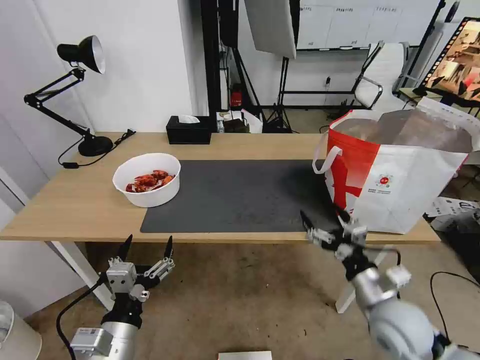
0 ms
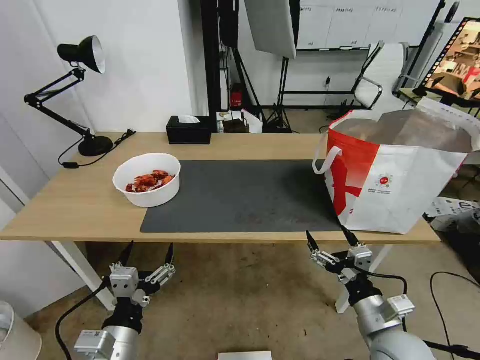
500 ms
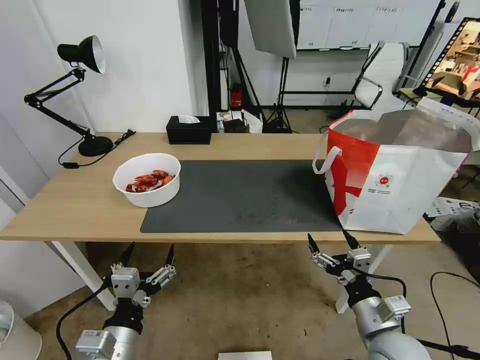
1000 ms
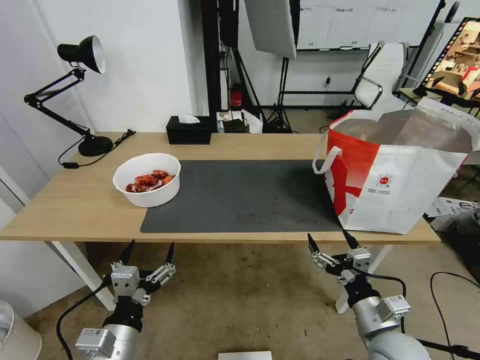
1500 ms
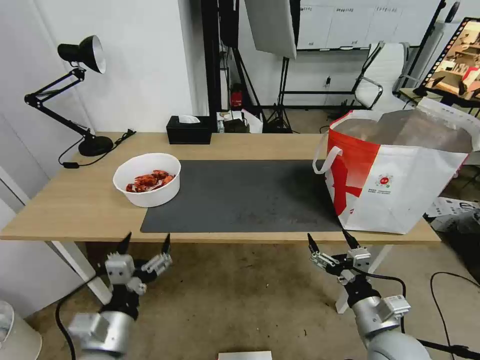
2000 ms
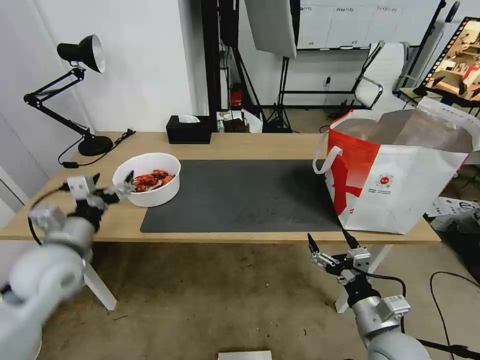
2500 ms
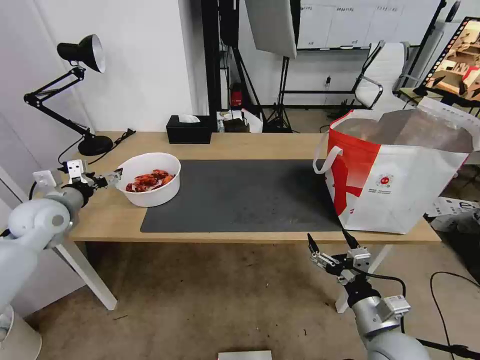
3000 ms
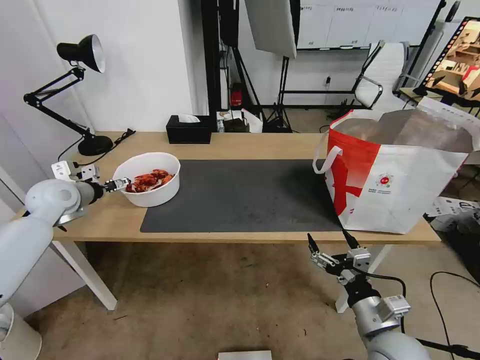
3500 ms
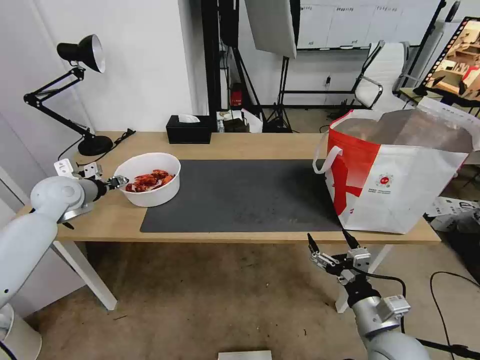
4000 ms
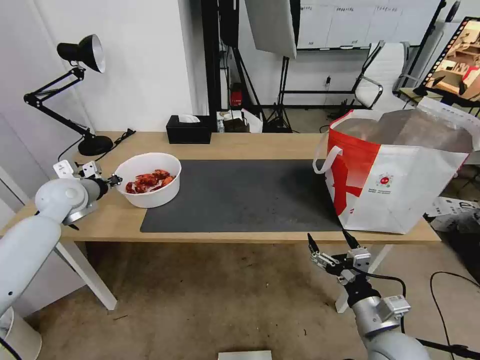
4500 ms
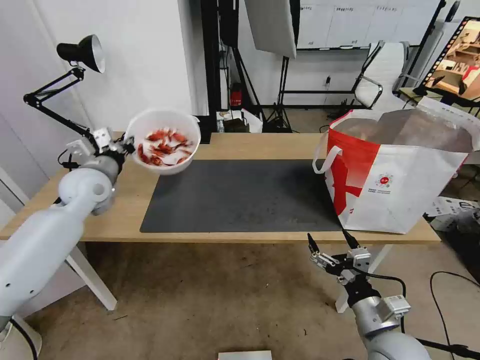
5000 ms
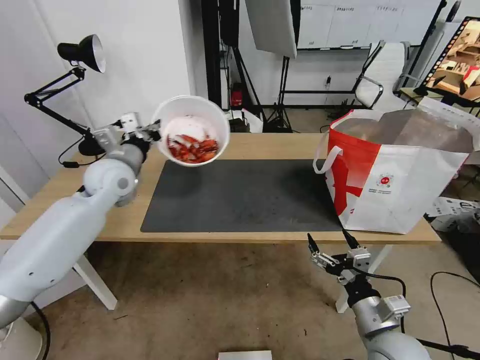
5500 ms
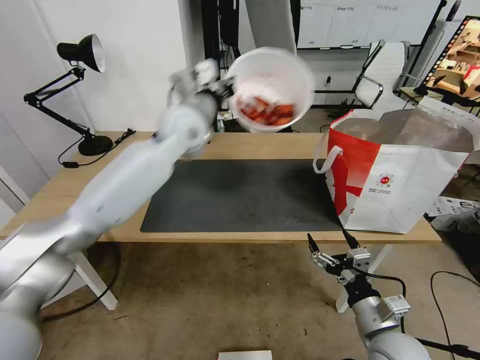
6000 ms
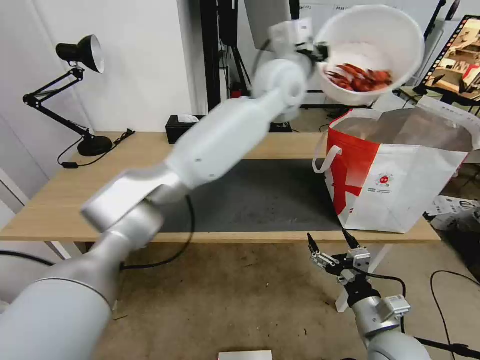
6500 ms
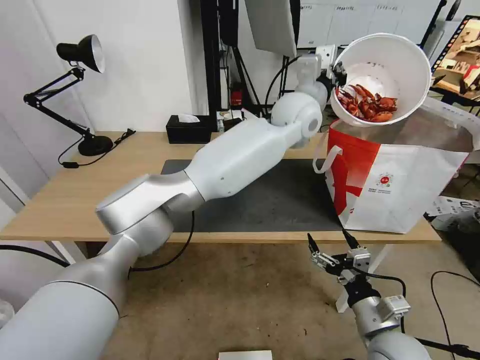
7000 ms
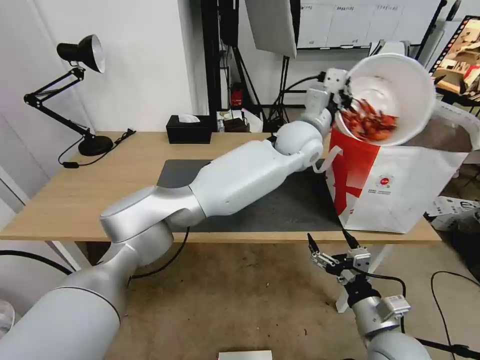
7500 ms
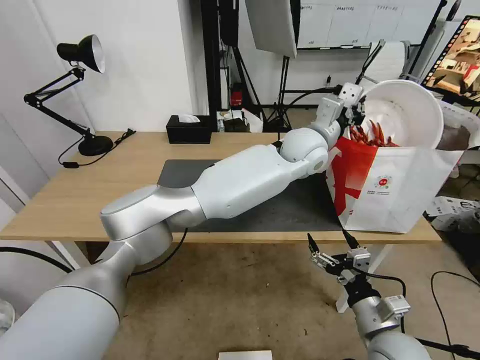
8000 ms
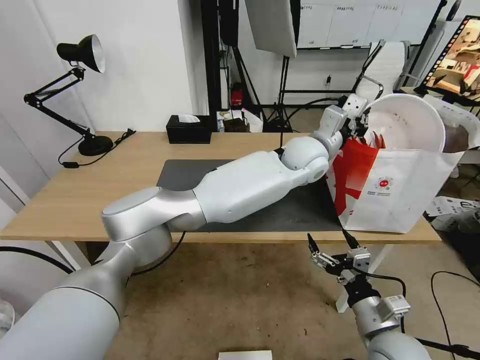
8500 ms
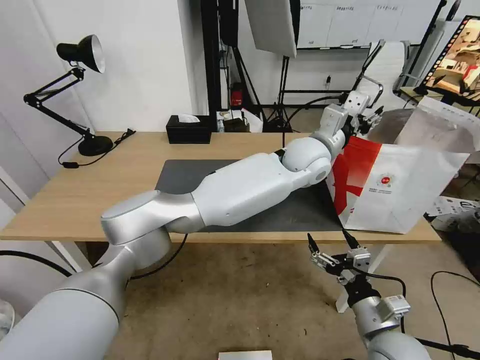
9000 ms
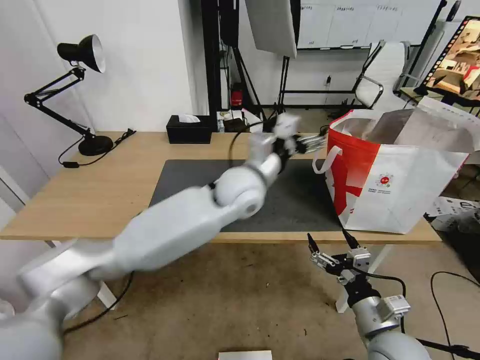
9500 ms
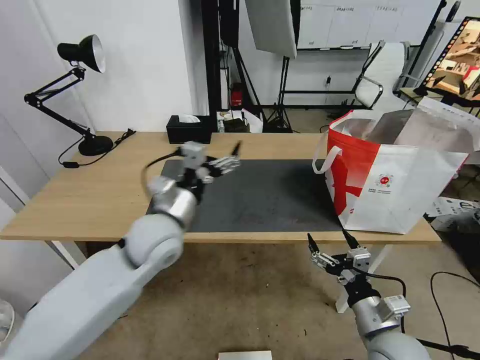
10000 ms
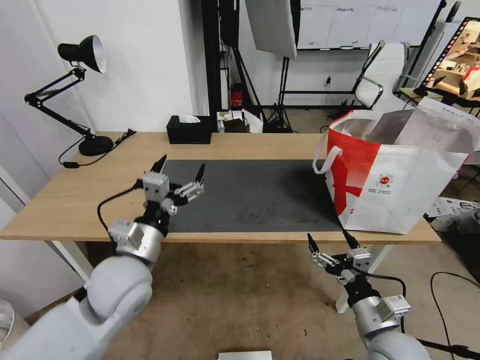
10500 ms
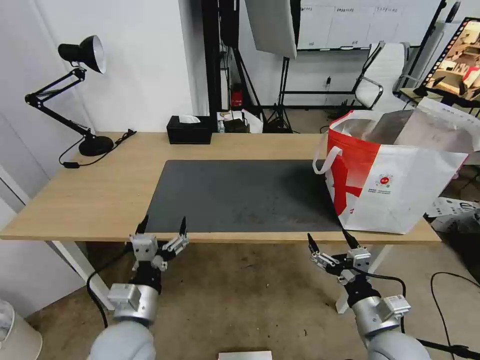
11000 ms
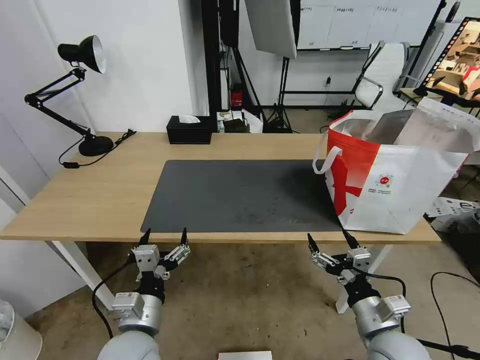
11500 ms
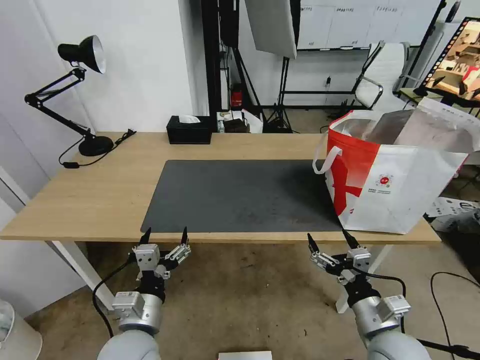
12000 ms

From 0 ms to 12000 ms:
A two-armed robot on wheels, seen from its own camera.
Task of the whole recording: Pick up the trash from the table and place it into the takeout bag.
From 0 ms to 2000 ms: The right gripper heads backward, covering approximately 5 cm.
From 2000 ms to 4000 ms: The left gripper is displaced forward and to the left by about 35 cm, and closes up.
From 4000 ms to 6000 ms: The left gripper is displaced to the right and upward by approximately 35 cm, and closes its fingers.
From 6000 ms to 8000 ms: The left gripper shifts roughly 25 cm to the right.
From 8000 ms to 10000 ms: The left gripper goes about 30 cm to the left and backward, and opens its fingers.
From 10000 ms to 12000 ms: The left gripper heads backward and downward, covering roughly 20 cm.

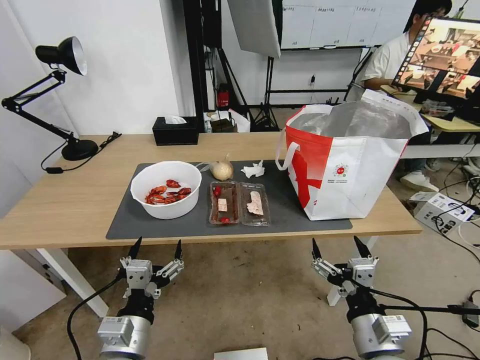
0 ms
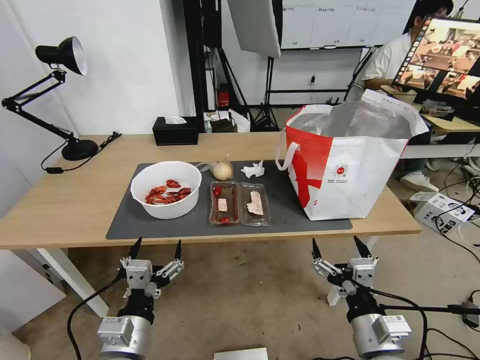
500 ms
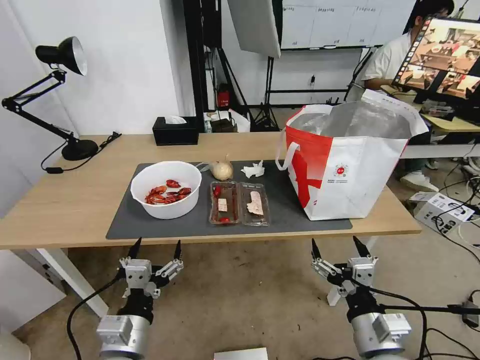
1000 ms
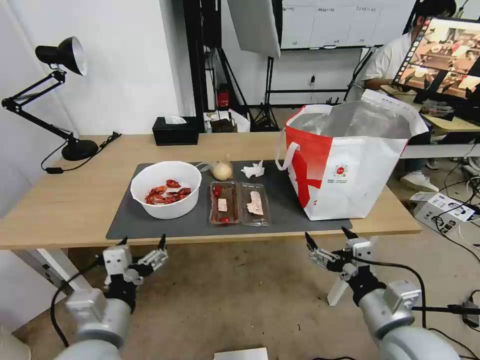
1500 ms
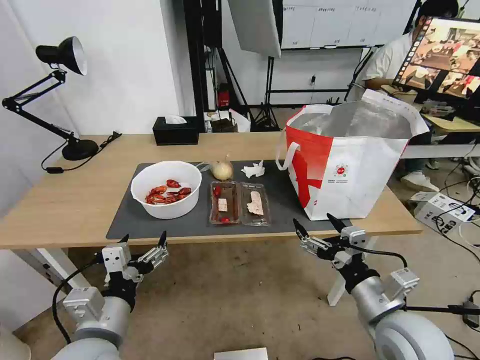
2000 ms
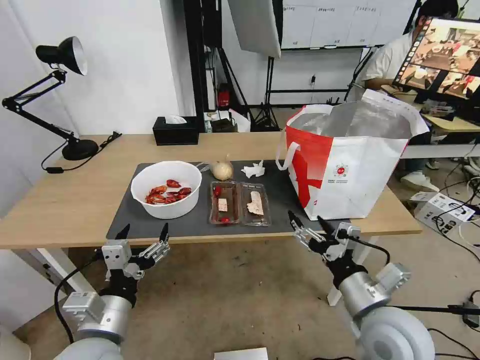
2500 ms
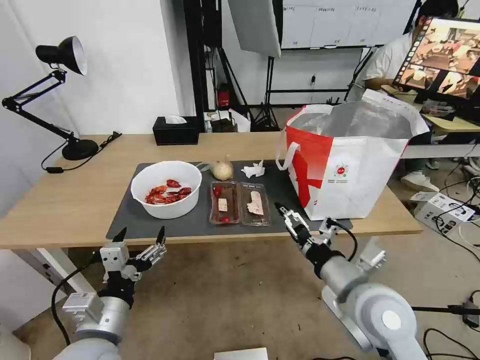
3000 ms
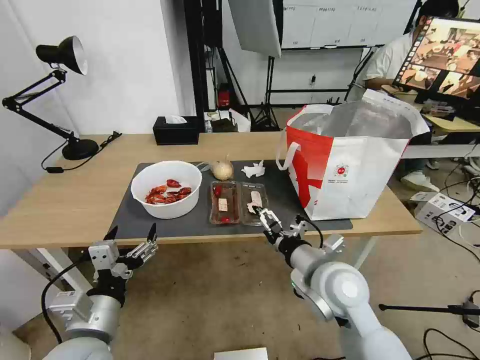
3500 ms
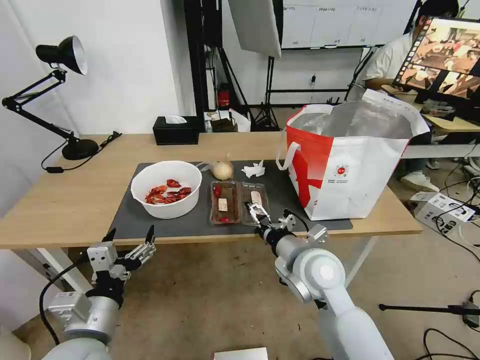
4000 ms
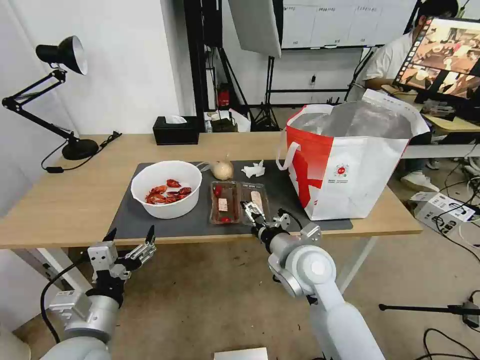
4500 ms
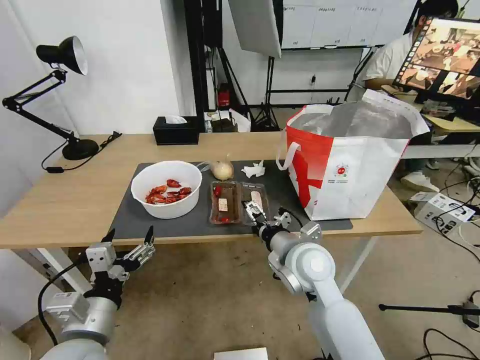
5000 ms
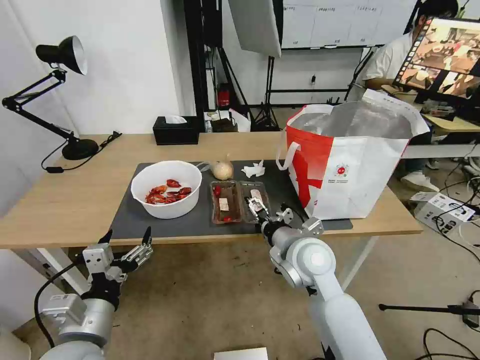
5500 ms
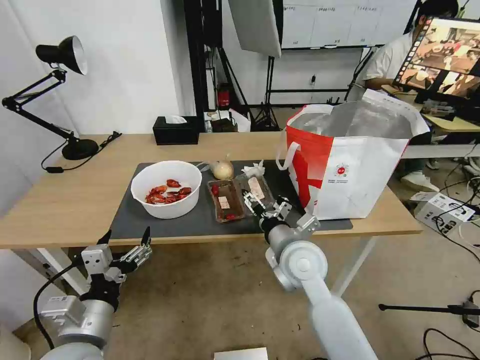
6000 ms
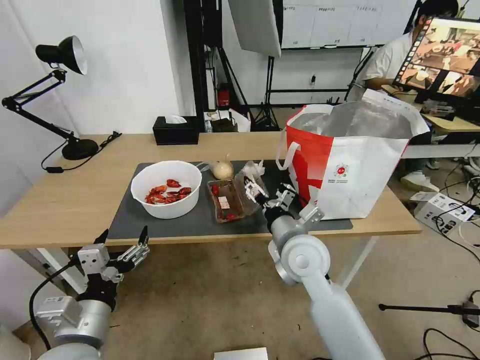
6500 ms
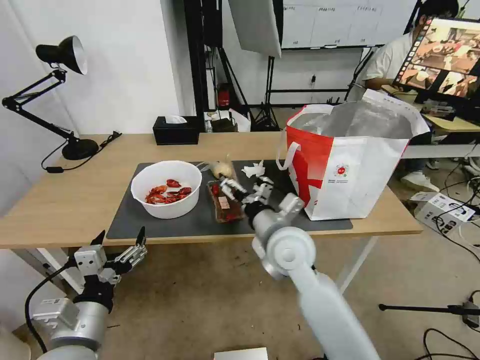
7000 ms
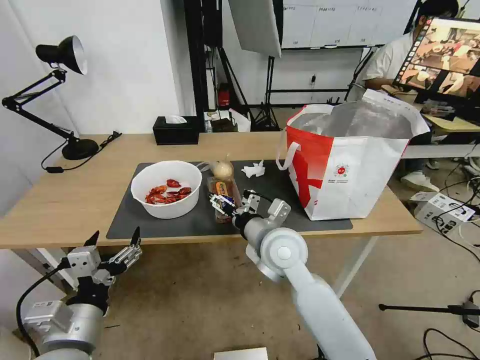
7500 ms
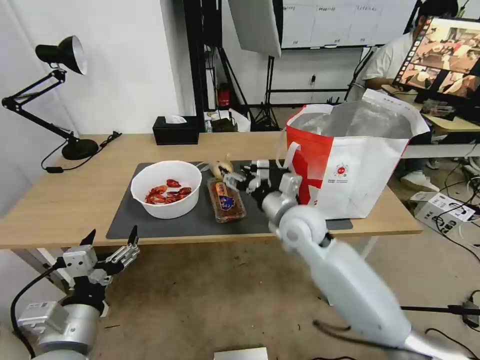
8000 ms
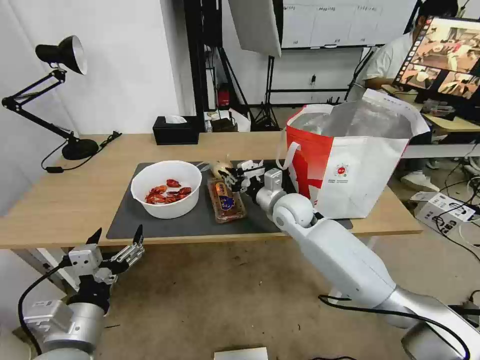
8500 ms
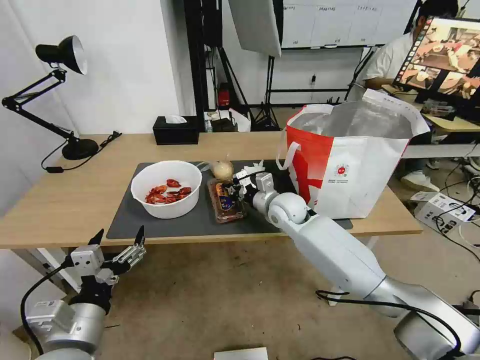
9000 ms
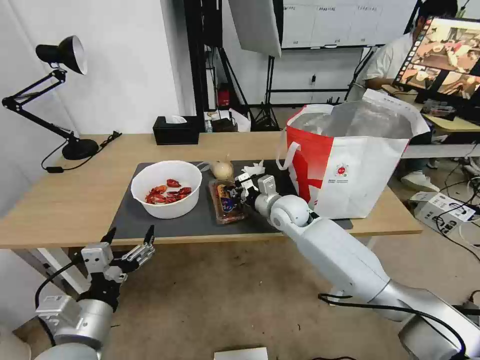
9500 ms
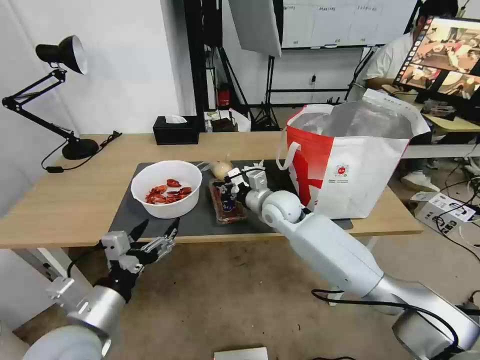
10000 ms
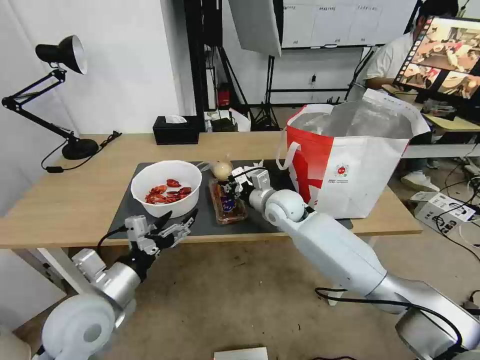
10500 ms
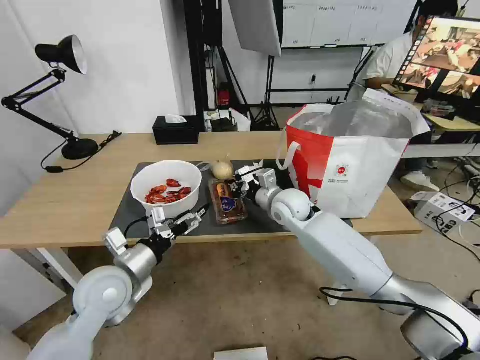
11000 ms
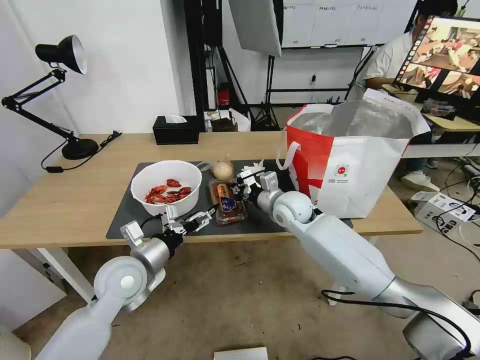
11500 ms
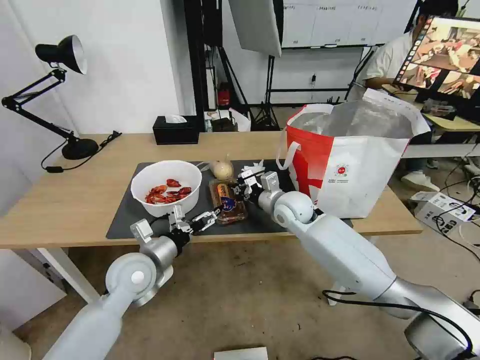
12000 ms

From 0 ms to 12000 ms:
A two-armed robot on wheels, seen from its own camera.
Task of the whole recording: Pick up the trash from the table and place it into the takeout bag.
From 2000 ms to 4000 ms: The right gripper moves to the left and forward, approximately 15 cm.
From 4000 ms to 6000 ms: The grippers stay close to where they were, moving slightly.
From 6000 ms to 8000 ms: The right gripper travels forward by approximately 5 cm.
From 8000 ms to 10000 ms: The right gripper is displaced forward by about 10 cm, and closes.
From 10000 ms to 12000 ms: The left gripper shifts about 15 cm forward.

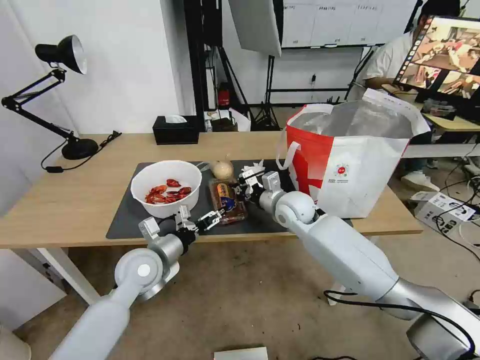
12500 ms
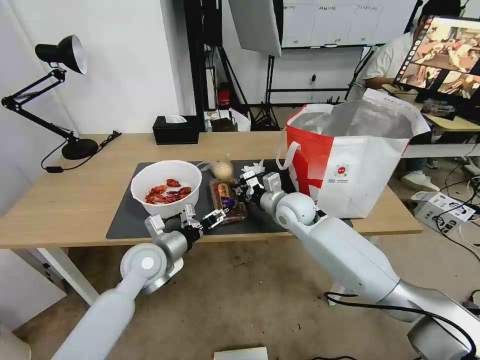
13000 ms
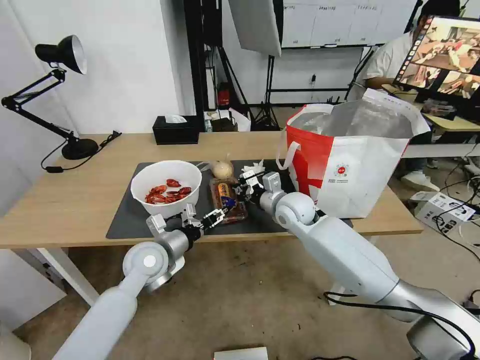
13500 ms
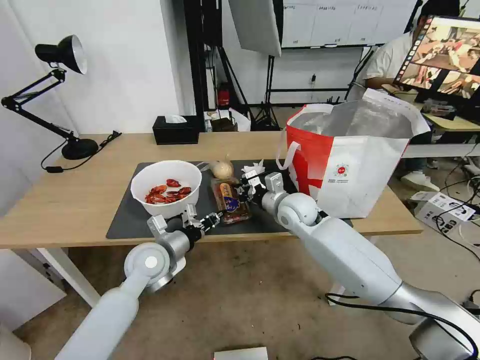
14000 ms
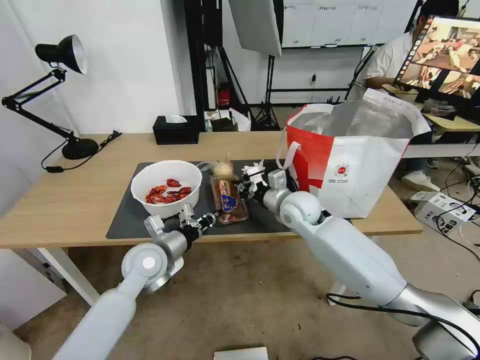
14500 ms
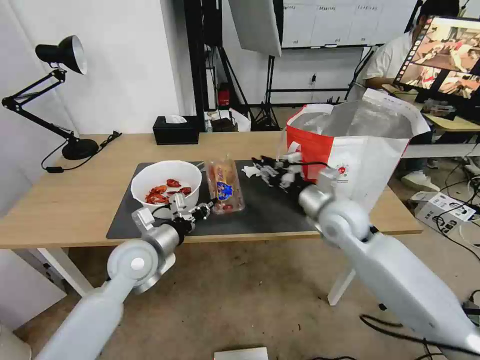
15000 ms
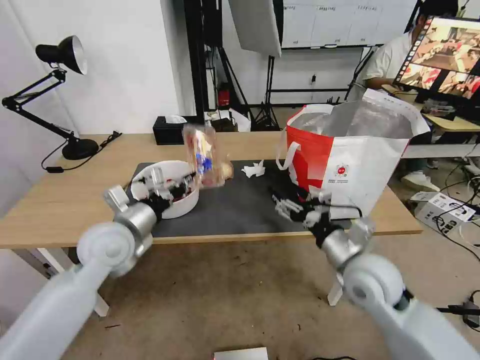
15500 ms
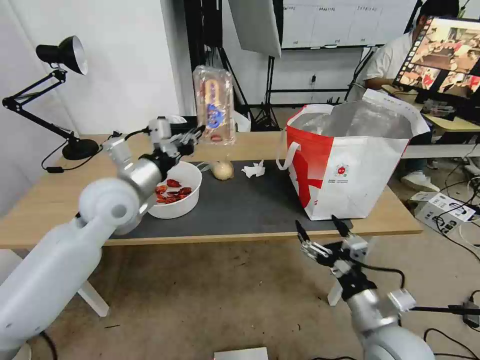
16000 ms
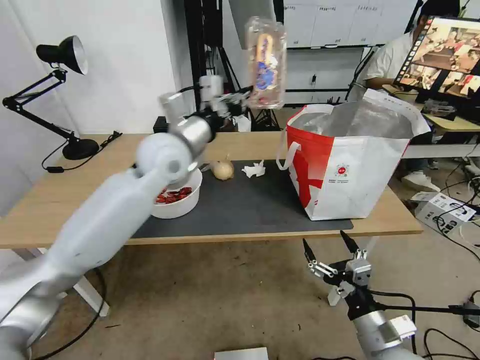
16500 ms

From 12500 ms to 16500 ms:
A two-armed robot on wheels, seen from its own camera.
Task of the whole recording: Pick up the trash from the table and place it into the takeout bag.
From 12500 ms to 14500 ms: The left gripper closes its fingers.
From 14500 ms to 16500 ms: The left gripper goes some 25 cm upward and forward. Meanwhile the right gripper moves backward, about 30 cm, and opens.
